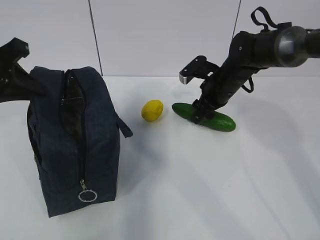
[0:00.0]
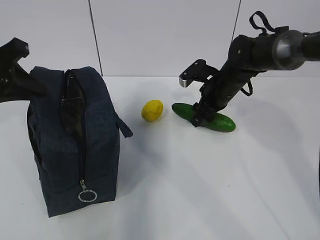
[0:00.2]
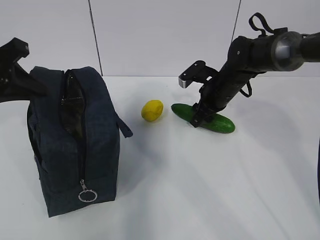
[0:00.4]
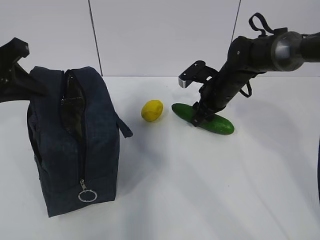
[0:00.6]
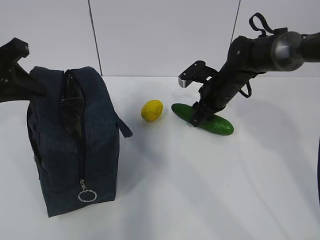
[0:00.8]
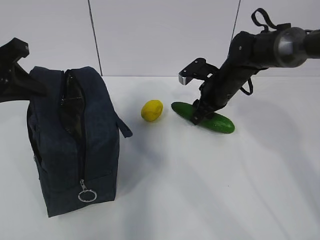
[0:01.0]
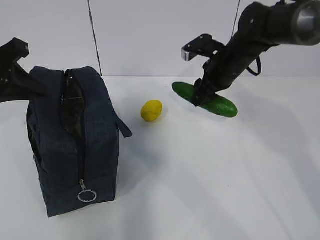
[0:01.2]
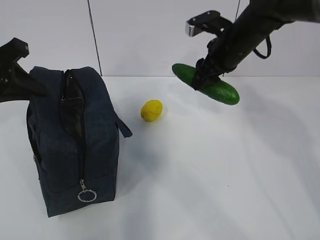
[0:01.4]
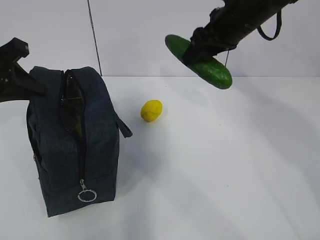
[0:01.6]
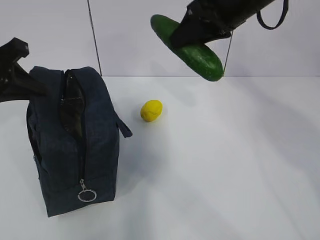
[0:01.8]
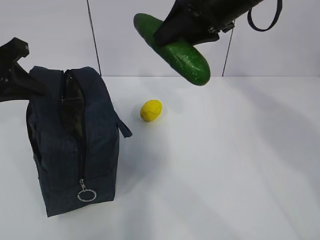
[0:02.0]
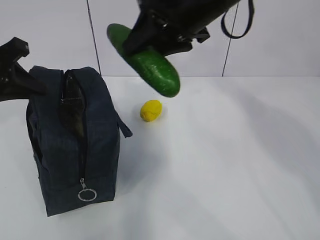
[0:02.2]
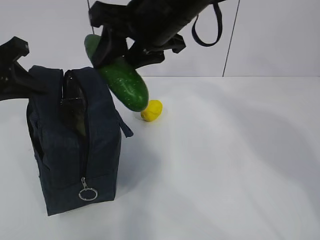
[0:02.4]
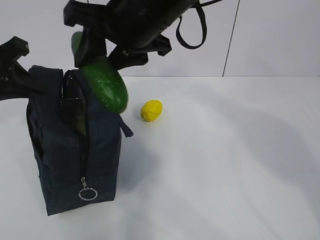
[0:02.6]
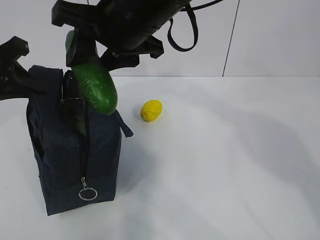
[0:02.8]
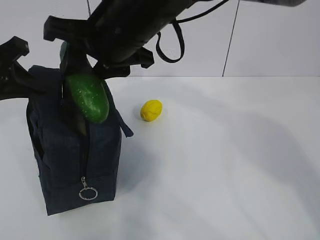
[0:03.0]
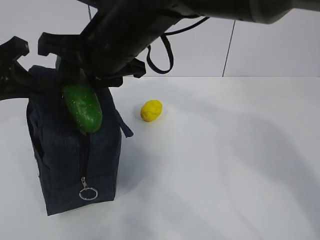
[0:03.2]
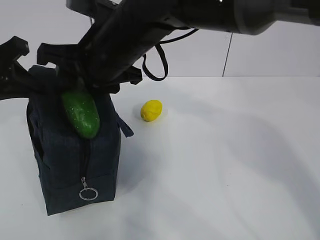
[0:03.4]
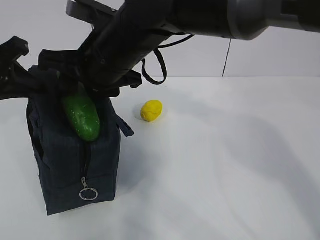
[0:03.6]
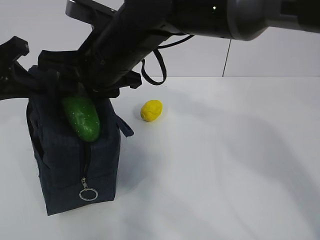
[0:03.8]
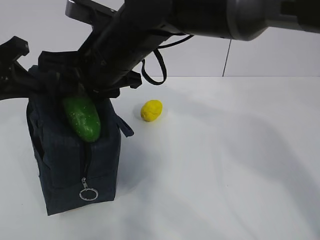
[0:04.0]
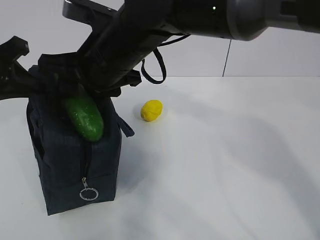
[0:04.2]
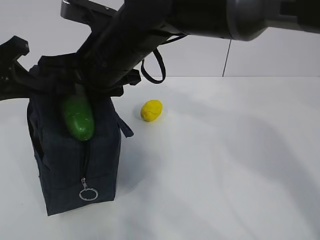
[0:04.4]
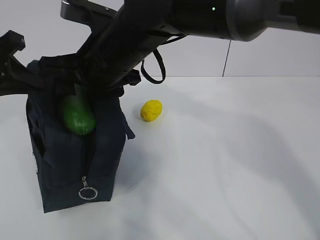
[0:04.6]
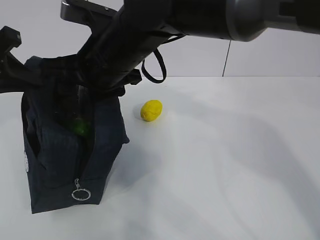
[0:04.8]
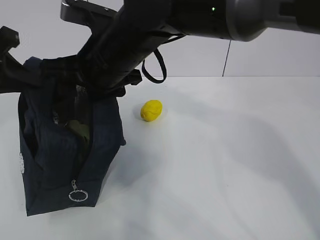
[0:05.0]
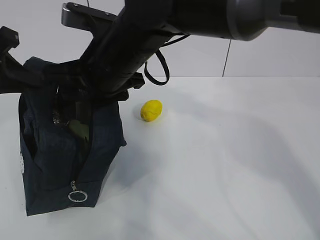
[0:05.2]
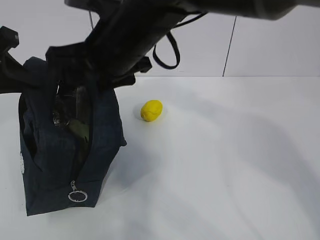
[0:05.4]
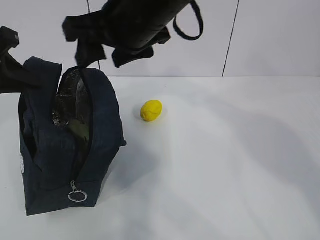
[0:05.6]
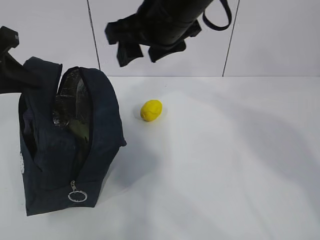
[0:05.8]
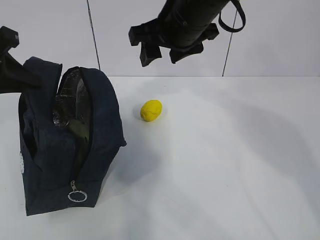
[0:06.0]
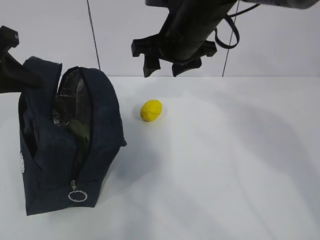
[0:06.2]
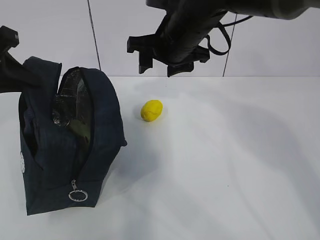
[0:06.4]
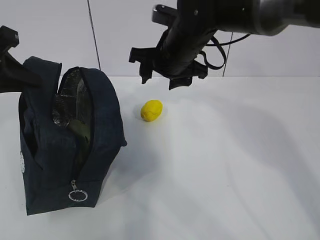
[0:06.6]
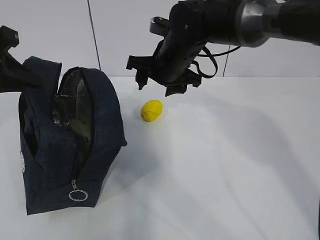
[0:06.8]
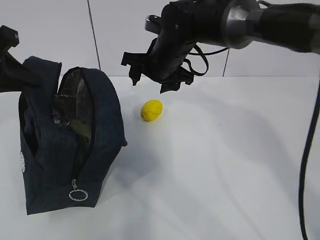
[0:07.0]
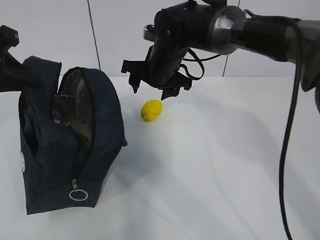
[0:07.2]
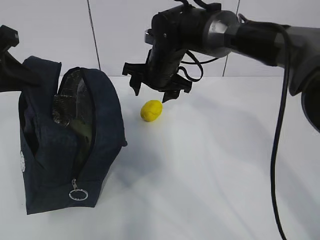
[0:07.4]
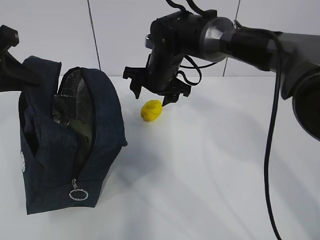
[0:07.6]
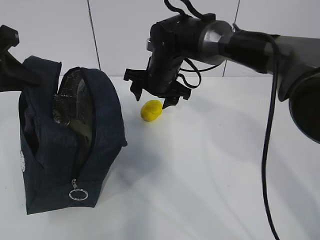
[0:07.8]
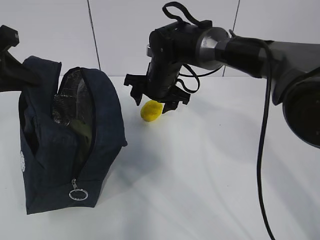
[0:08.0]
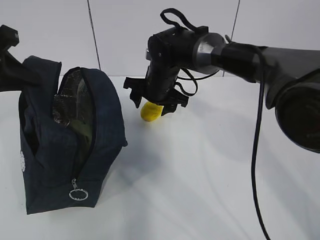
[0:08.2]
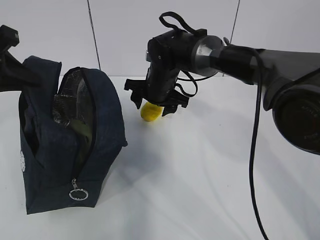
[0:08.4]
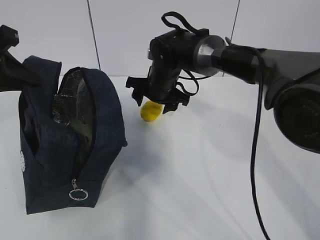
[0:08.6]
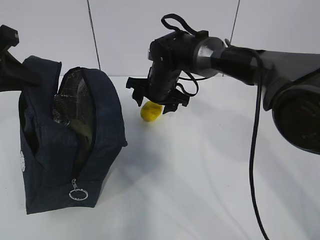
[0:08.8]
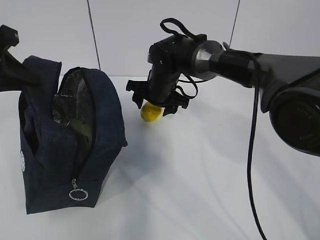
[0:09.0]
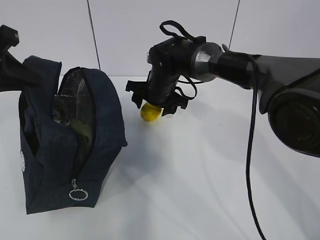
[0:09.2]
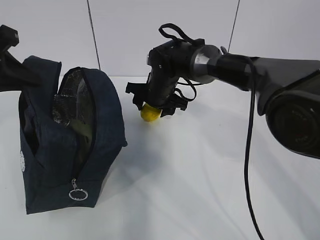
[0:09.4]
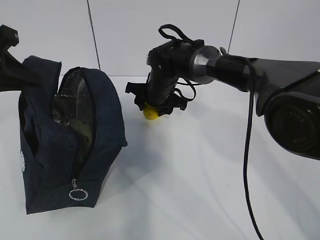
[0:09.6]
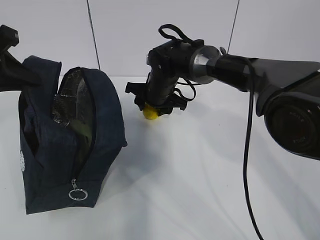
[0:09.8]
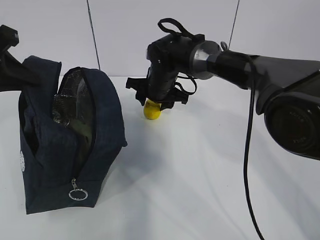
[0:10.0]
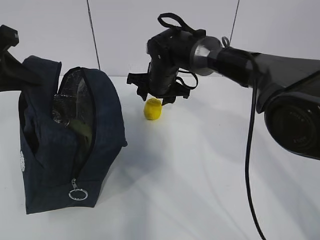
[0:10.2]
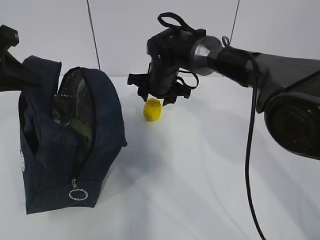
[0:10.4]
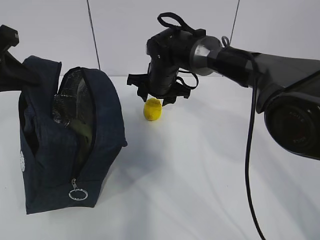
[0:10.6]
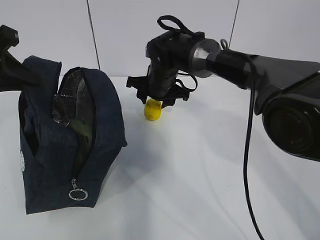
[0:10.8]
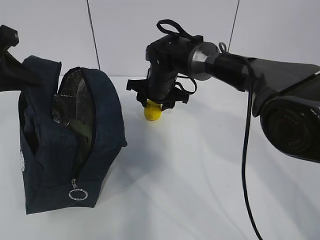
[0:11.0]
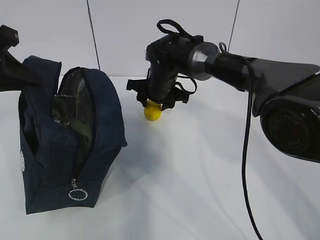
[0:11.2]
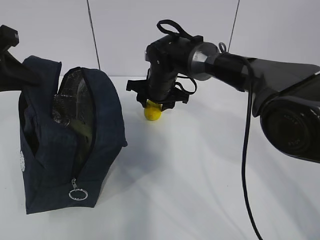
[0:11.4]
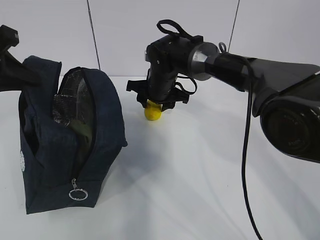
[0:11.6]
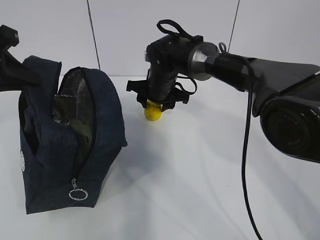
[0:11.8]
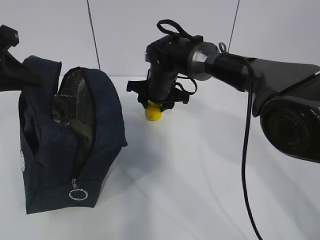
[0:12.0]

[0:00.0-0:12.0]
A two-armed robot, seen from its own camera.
Step, 0:00.2 to 0:05.8: Grab the lemon with your right hand.
0:00.0 to 0:01.6: The right gripper is displaced upward by approximately 15 cm.
0:01.6 to 0:03.0: The right gripper goes some 20 cm to the left and backward.
0:03.0 to 0:04.4: The grippers make only small movements.
0:04.4 to 0:06.0: The right gripper goes roughly 10 cm to the right.
0:06.0 to 0:07.6: The right gripper shifts some 15 cm downward and forward.
0:07.6 to 0:10.4: There are only small adjustments of the grippers.
0:10.4 to 0:12.0: Neither gripper changes place.

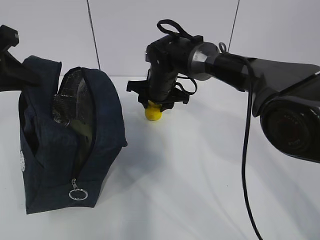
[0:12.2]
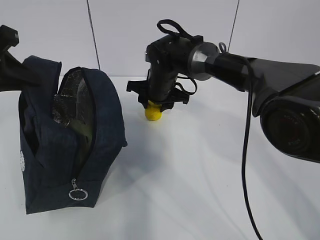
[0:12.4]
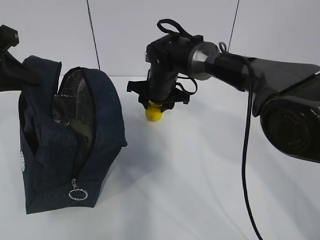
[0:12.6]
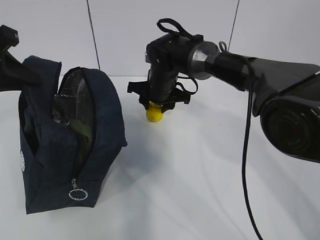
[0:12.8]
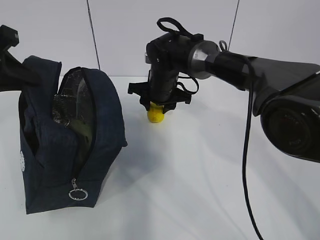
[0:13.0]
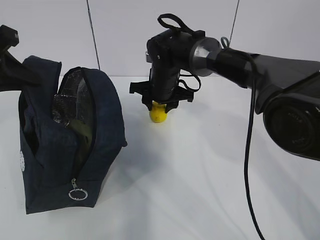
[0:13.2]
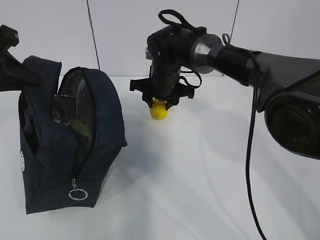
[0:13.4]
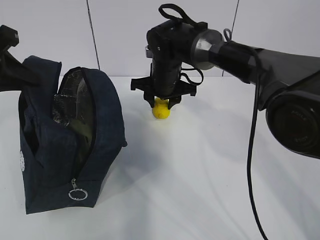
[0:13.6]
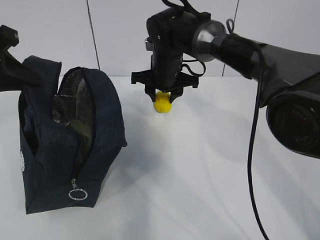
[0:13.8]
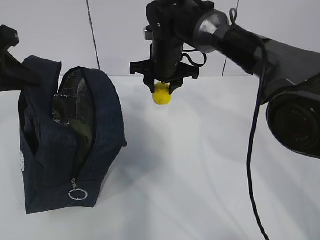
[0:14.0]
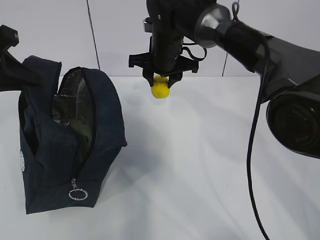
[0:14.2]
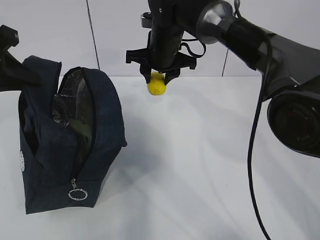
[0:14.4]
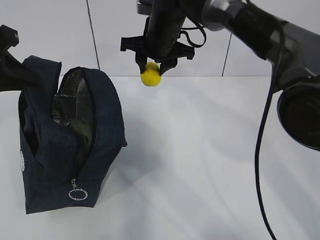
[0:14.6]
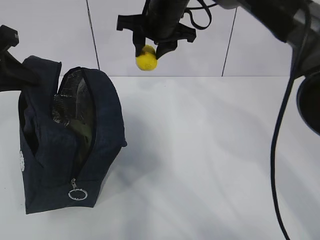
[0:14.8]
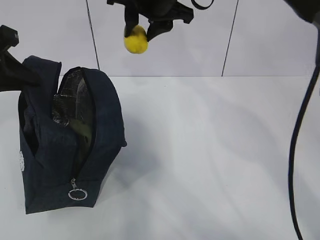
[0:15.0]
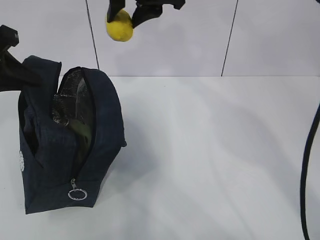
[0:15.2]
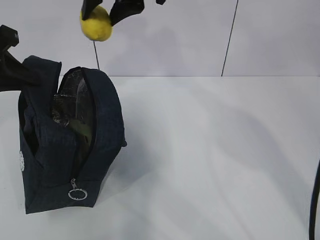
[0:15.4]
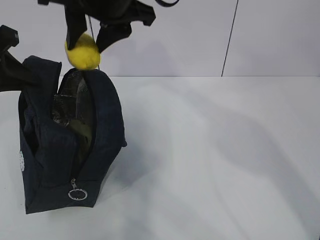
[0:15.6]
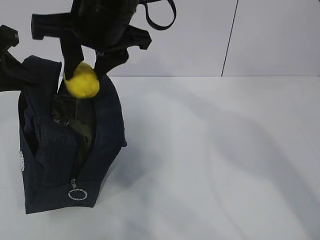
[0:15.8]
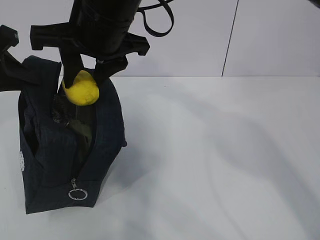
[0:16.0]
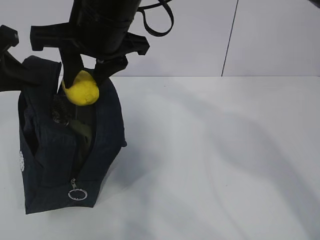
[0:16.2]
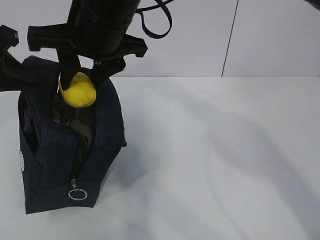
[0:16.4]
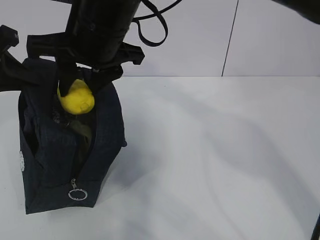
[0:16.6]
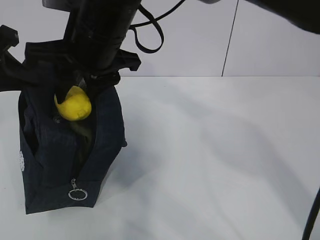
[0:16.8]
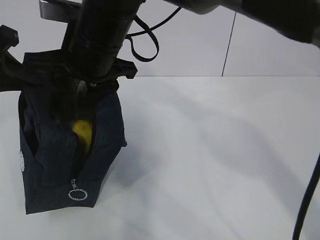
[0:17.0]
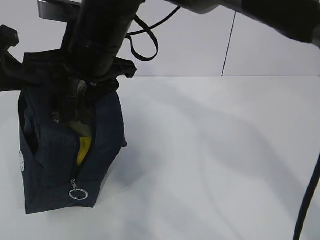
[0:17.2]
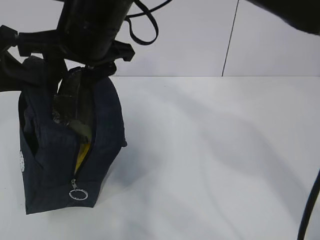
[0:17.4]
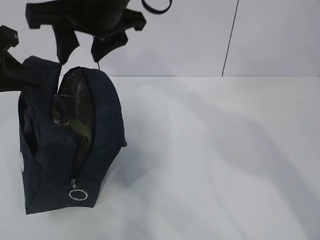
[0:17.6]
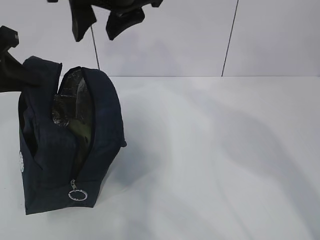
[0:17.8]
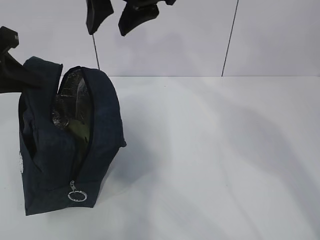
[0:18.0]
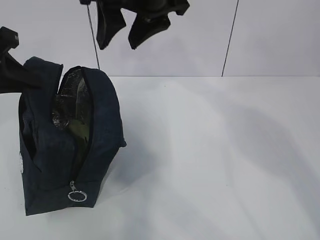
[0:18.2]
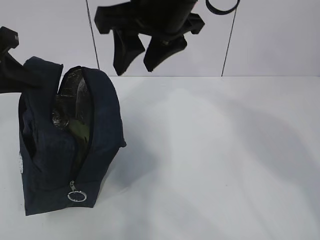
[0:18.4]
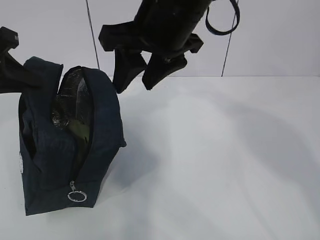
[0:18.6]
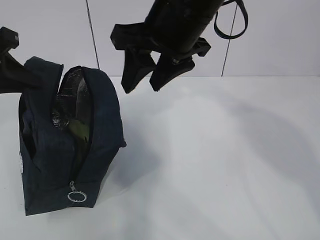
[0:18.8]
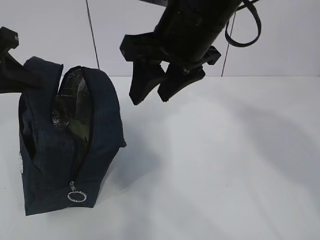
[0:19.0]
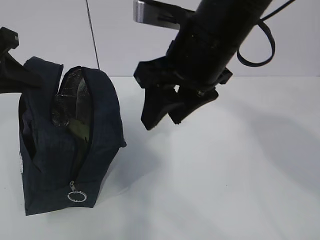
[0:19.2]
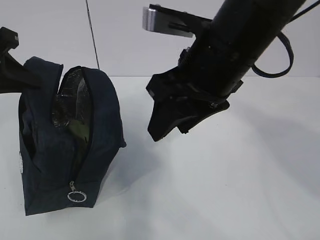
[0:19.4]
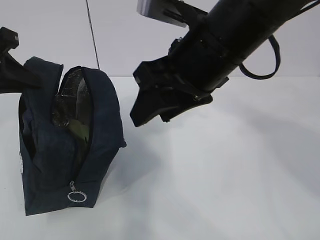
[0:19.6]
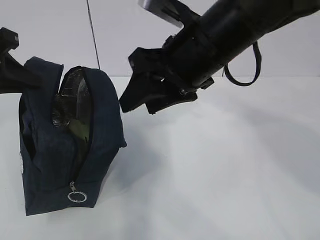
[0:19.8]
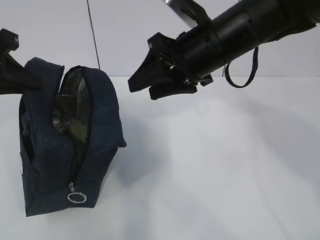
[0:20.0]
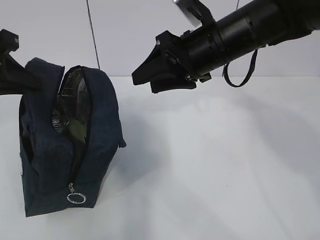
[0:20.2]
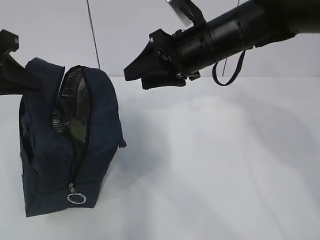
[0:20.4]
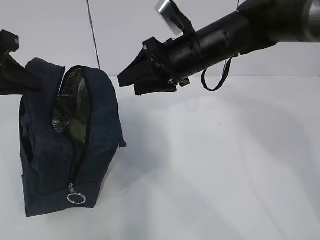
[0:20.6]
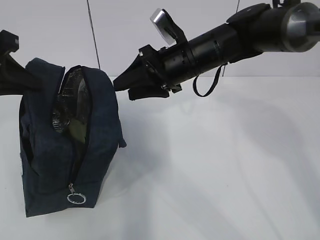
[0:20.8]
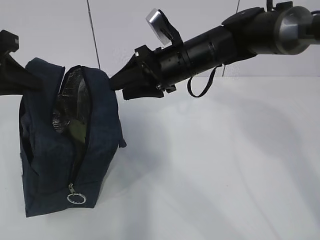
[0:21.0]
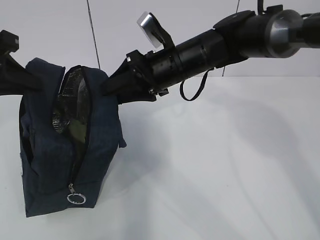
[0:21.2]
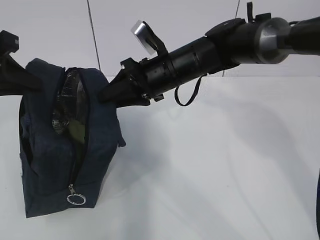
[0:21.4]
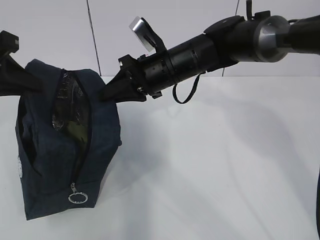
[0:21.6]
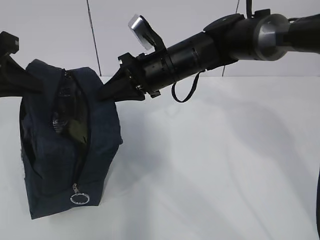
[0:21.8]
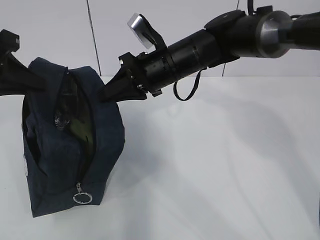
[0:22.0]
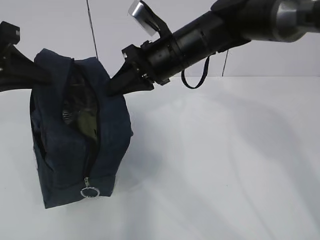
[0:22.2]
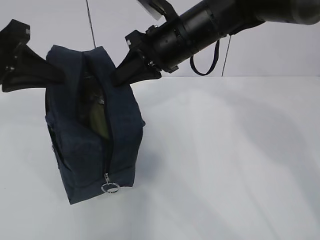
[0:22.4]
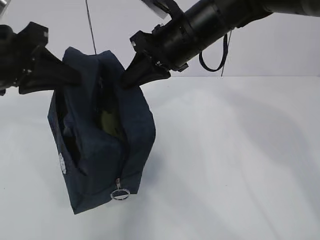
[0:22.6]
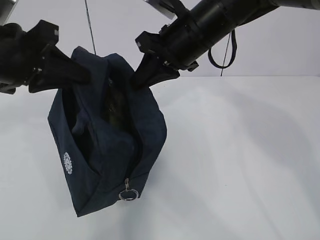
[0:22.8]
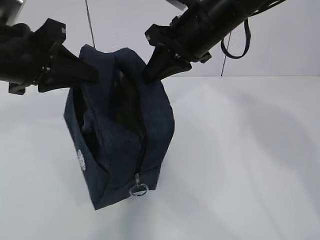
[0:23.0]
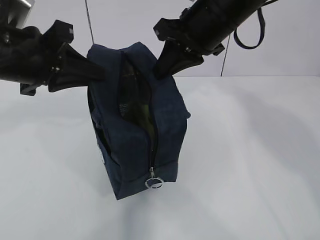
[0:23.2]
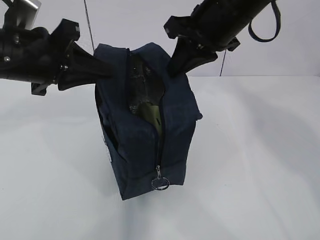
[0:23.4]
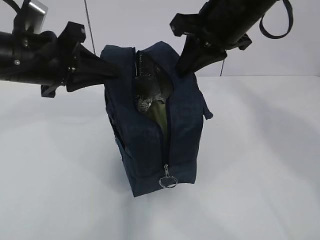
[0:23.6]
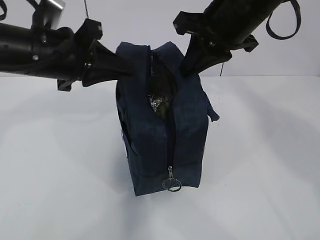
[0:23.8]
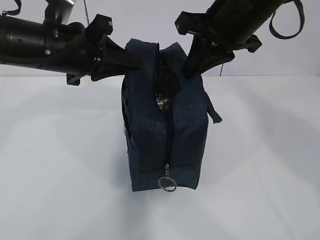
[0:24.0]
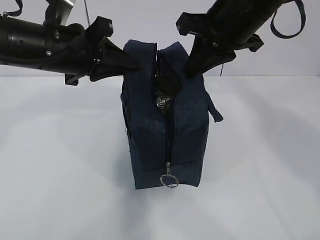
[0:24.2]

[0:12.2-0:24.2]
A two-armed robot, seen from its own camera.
Step, 0:14.0 to 0:17.2: Move the lunch bag to the right.
0:12.2 to 0:13.8: The grippers move only a little.
0:13.8 to 0:15.2: The right gripper shifts about 20 cm upward.
0:15.2 to 0:16.6: The right gripper shifts approximately 10 cm backward and to the left.
0:16.6 to 0:18.2: The right gripper moves to the right and upward, some 10 cm.
0:18.2 to 0:19.8: The right gripper heads downward, covering some 5 cm.
0:19.8 to 0:21.2: The right gripper moves forward and downward, some 15 cm.
0:21.2 to 0:22.6: The right gripper moves upward, about 5 cm, and closes its fingers.
0:22.6 to 0:24.2: The right gripper heads to the right and upward, covering approximately 10 cm; the left gripper shifts approximately 10 cm to the right and forward.
